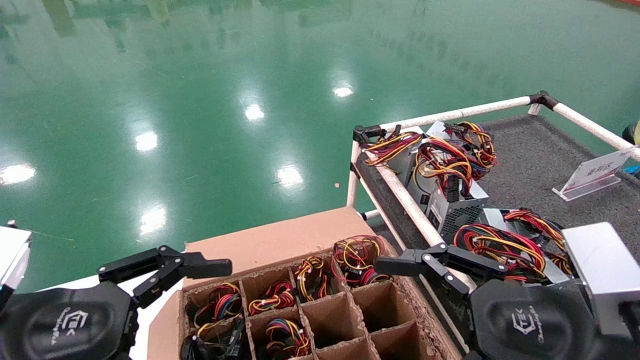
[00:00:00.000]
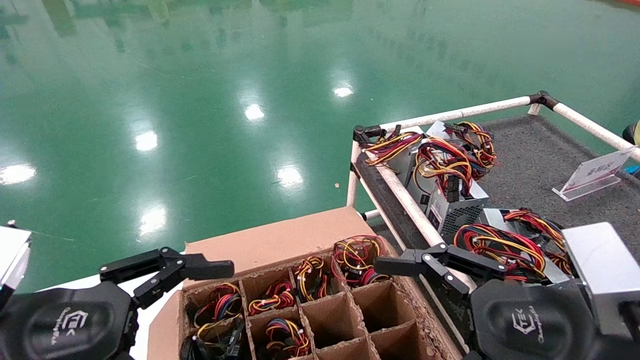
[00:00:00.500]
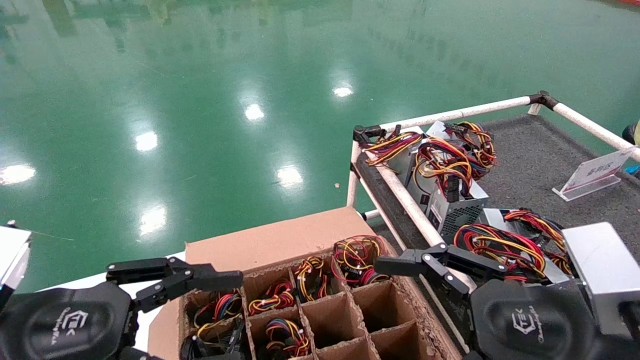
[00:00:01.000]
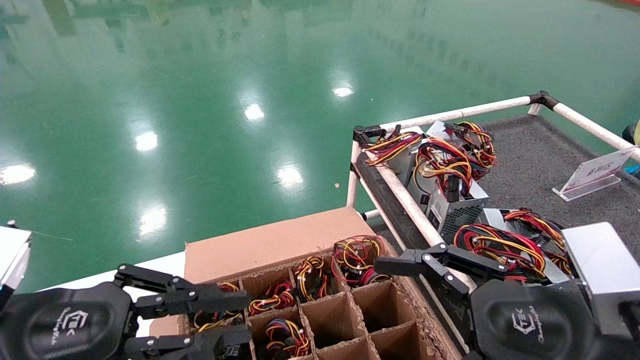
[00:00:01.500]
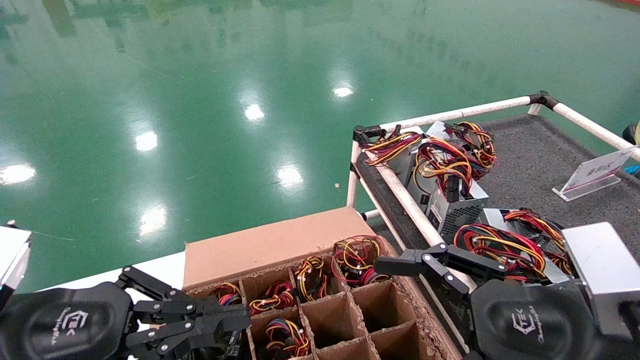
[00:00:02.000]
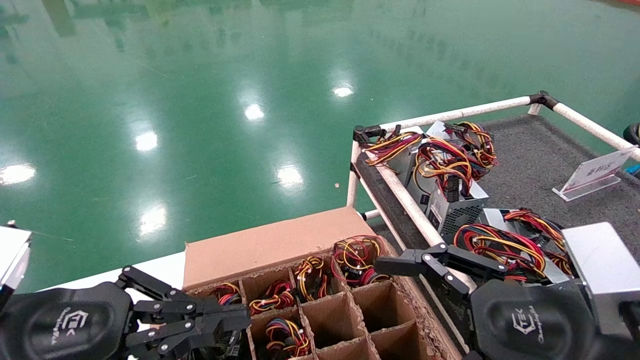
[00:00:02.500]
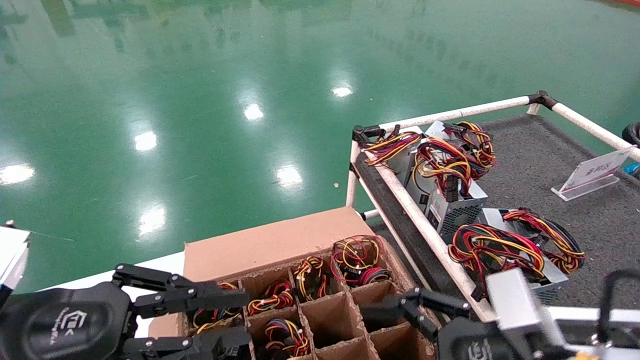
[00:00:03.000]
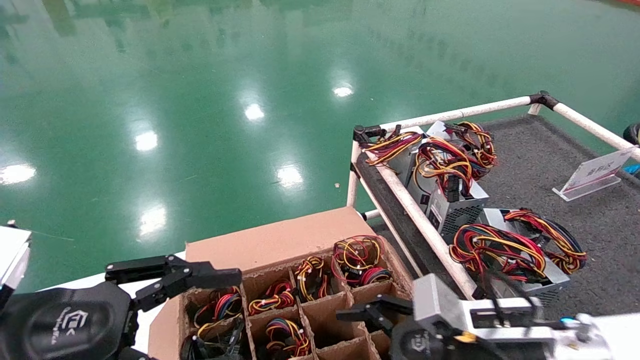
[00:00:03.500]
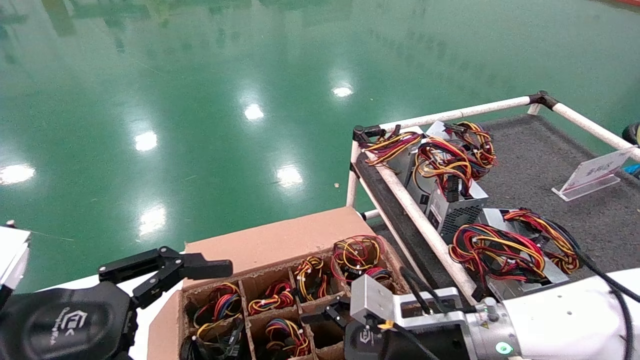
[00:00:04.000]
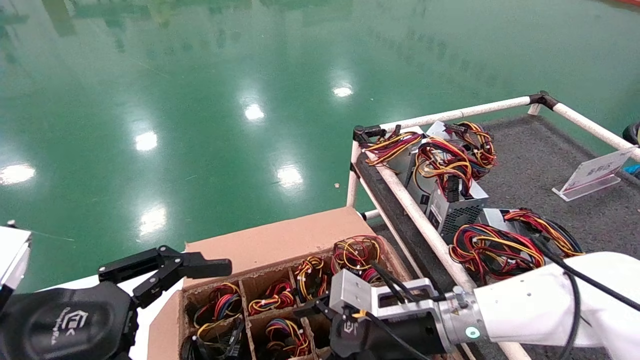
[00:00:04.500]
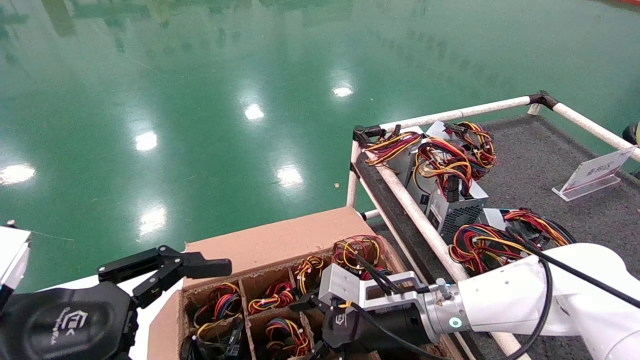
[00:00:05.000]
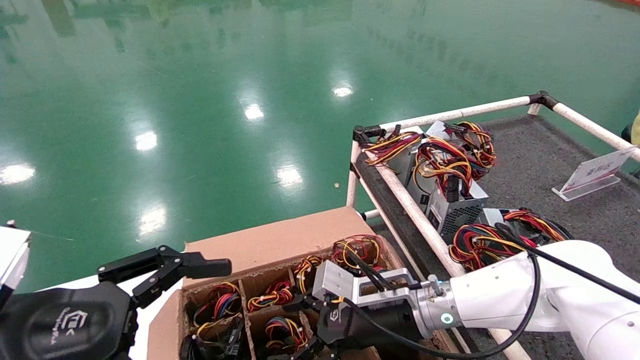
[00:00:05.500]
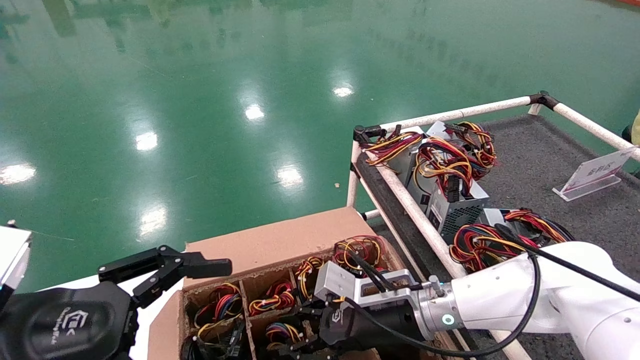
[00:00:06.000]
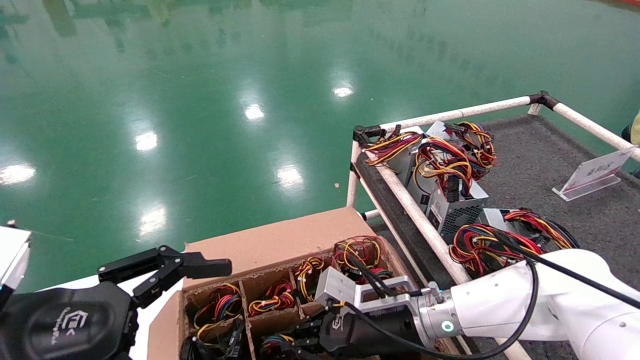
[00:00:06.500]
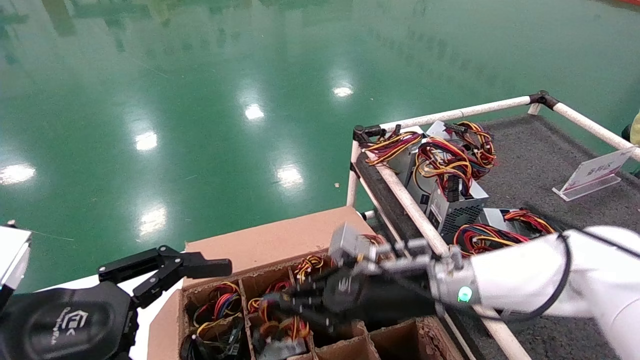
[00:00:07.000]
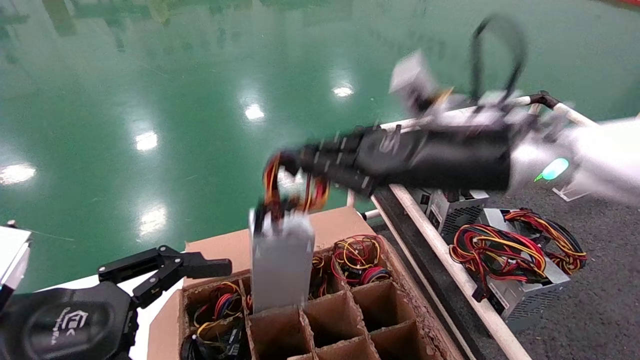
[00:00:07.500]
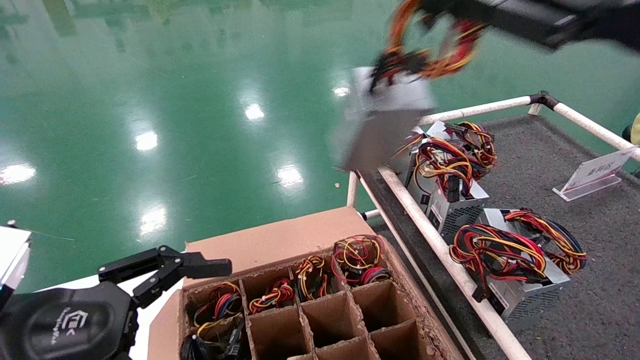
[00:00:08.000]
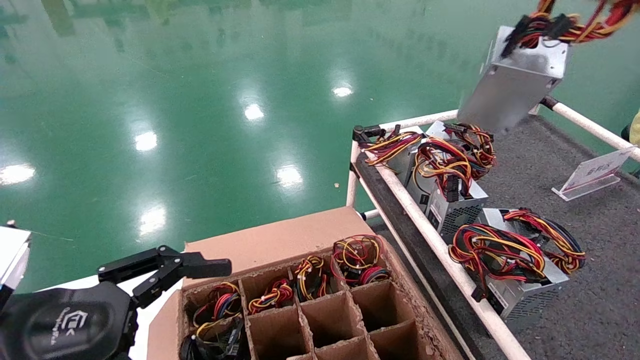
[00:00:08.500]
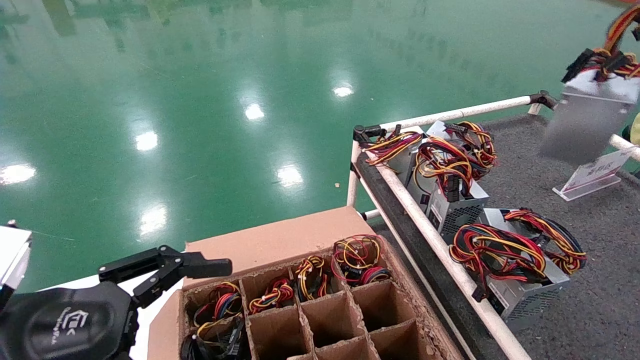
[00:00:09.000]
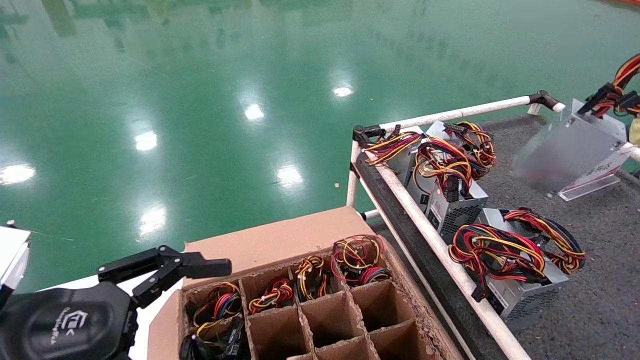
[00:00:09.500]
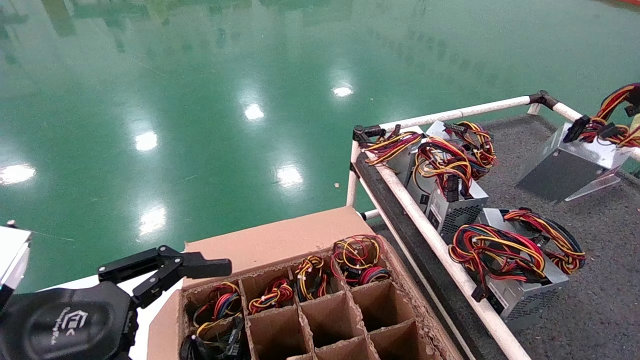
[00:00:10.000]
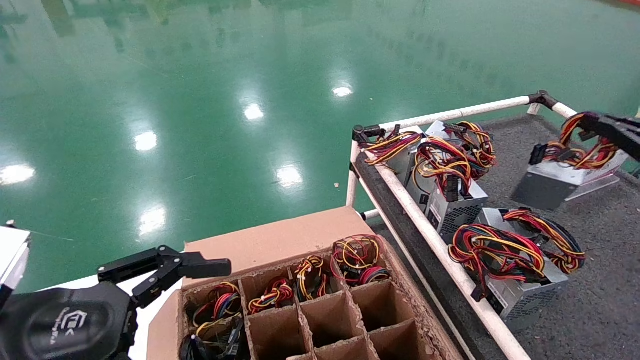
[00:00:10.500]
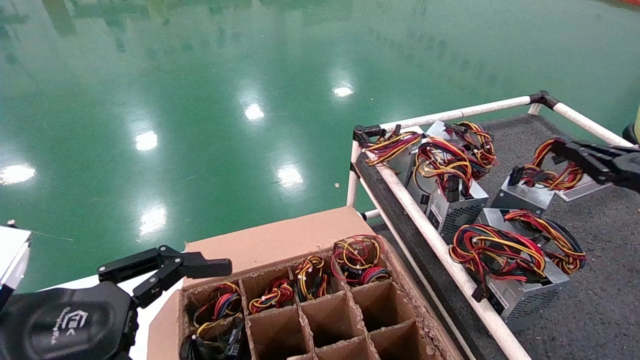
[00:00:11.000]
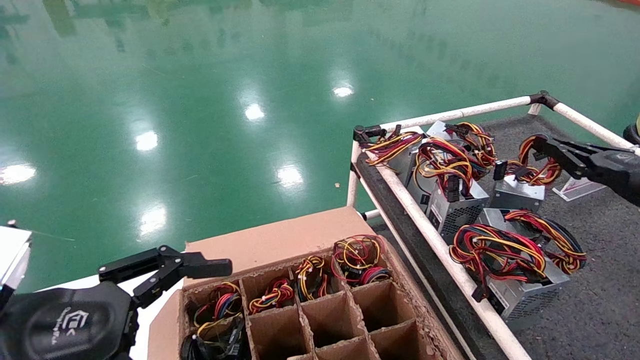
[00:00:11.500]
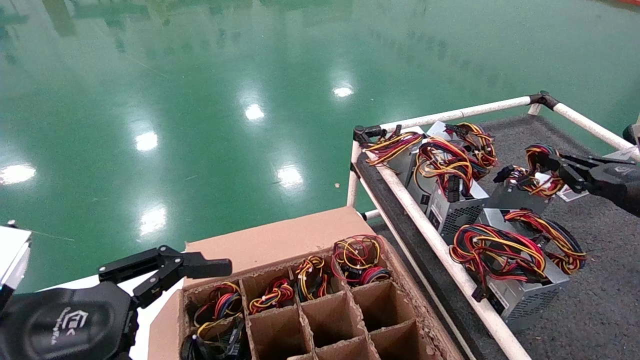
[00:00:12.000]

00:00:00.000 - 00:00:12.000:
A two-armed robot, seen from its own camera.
Step, 00:00:01.000 - 00:00:06.000: Grab and lift the power supply from the large box.
00:00:00.000 - 00:00:02.000: The left gripper closes its fingers.
00:00:02.000 - 00:00:04.000: The right gripper travels forward, downward and to the left by some 20 cm. The left gripper opens.
00:00:04.000 - 00:00:06.000: The right gripper heads forward, covering about 5 cm, and closes up.
00:00:06.000 - 00:00:08.000: The right gripper shifts approximately 40 cm upward, to the right and backward, and closes its fingers.
00:00:08.000 - 00:00:10.000: The right gripper heads to the right and downward, covering about 25 cm.
00:00:10.000 - 00:00:12.000: The right gripper heads forward and downward, covering some 10 cm.

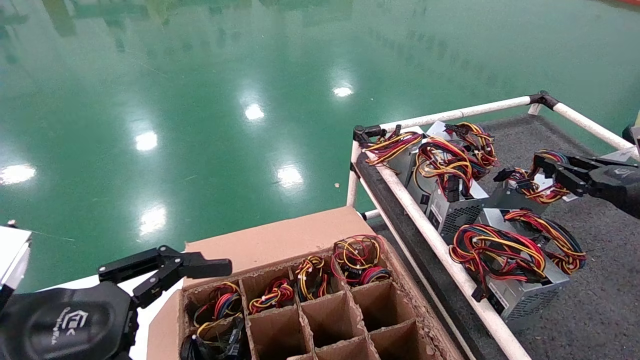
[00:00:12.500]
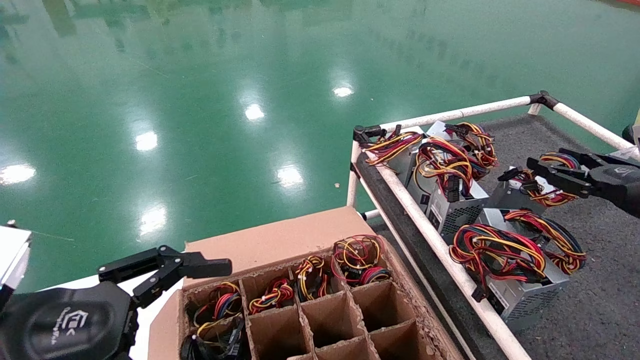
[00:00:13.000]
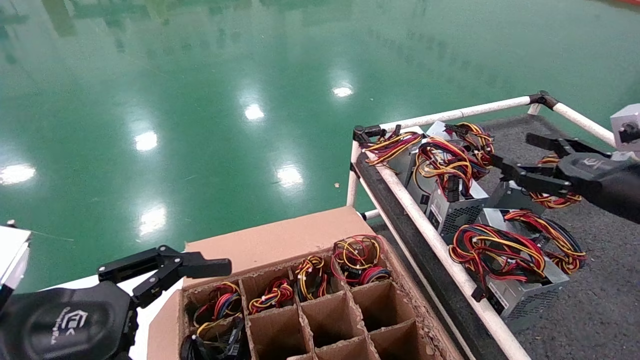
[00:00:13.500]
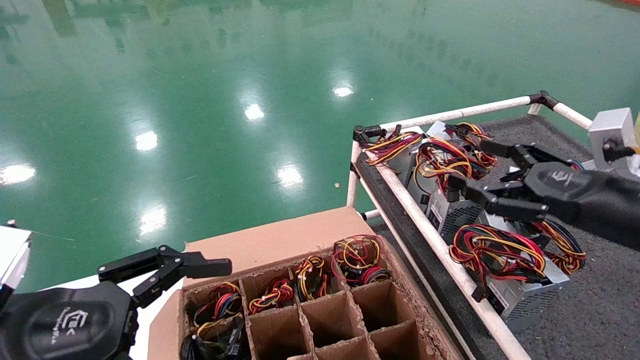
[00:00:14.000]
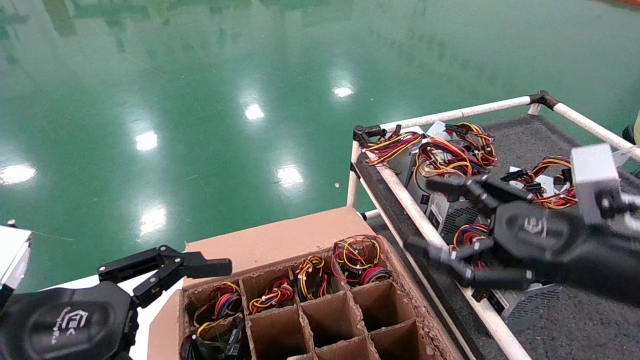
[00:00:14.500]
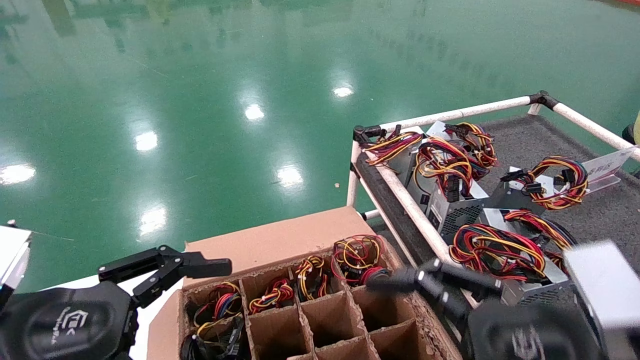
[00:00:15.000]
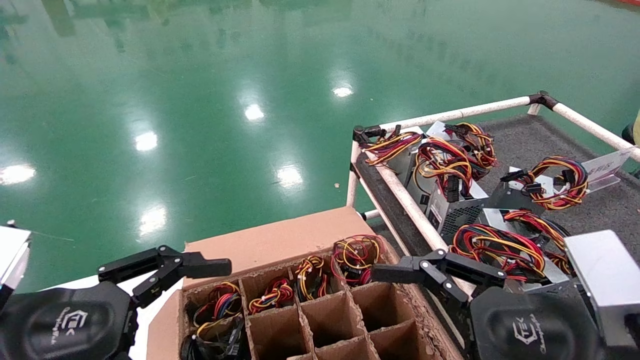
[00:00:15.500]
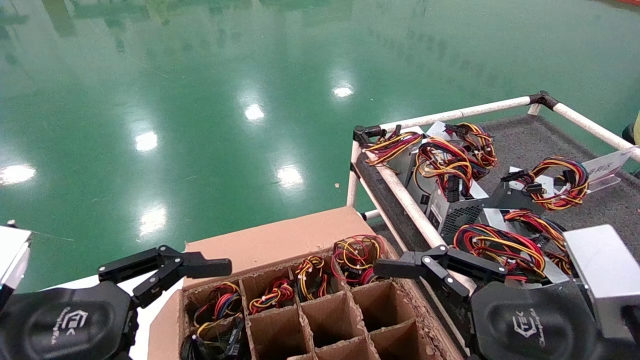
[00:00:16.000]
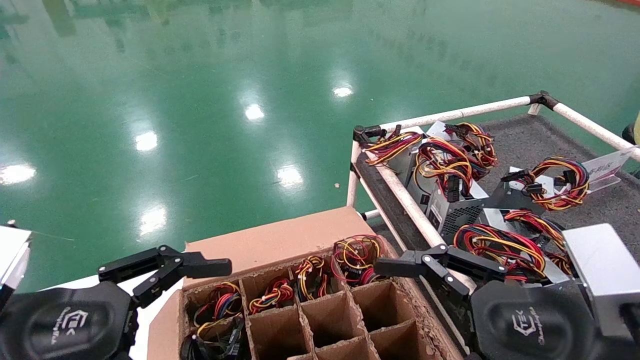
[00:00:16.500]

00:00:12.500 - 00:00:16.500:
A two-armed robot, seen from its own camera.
00:00:12.500 - 00:00:14.500: The right gripper heads to the left and backward, covering approximately 20 cm, and opens up.
00:00:14.500 - 00:00:16.500: The right gripper travels backward by some 5 cm.
